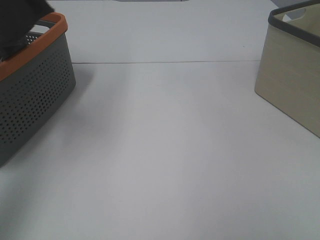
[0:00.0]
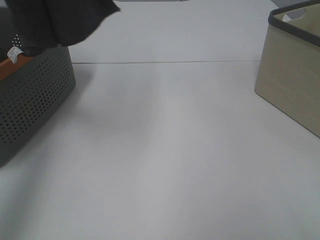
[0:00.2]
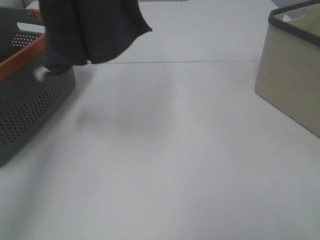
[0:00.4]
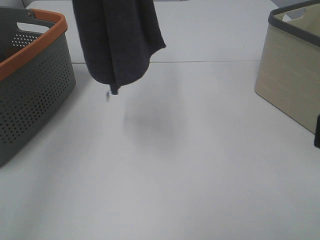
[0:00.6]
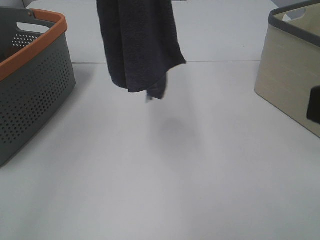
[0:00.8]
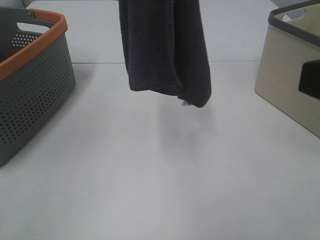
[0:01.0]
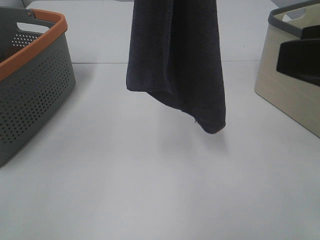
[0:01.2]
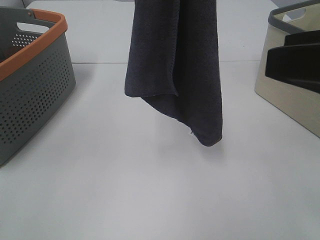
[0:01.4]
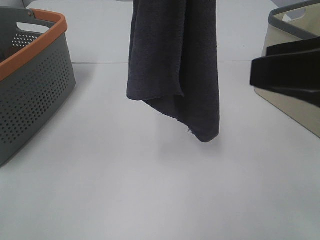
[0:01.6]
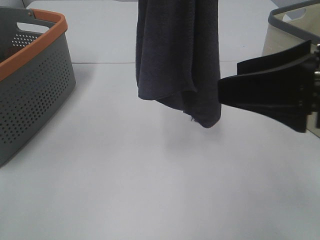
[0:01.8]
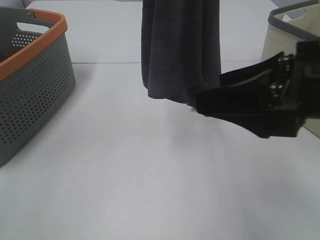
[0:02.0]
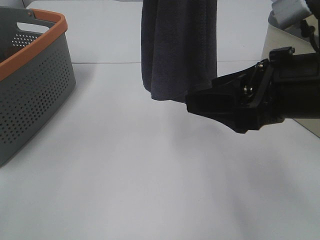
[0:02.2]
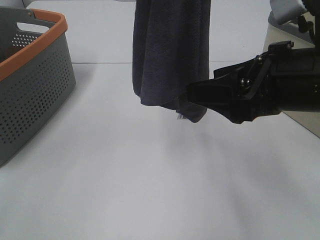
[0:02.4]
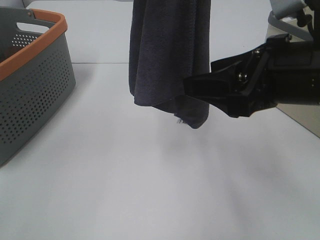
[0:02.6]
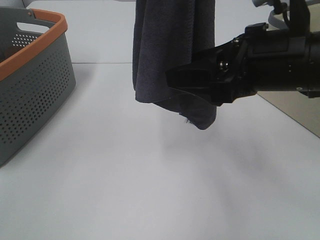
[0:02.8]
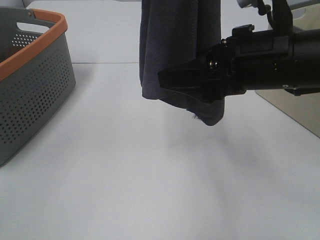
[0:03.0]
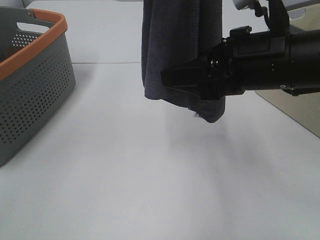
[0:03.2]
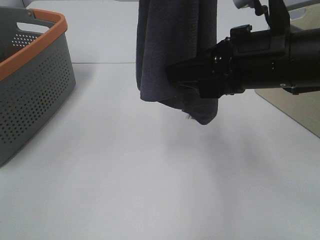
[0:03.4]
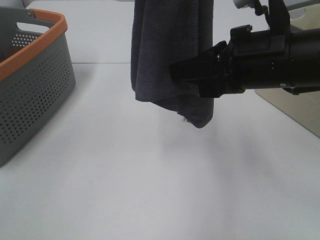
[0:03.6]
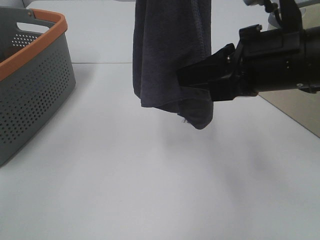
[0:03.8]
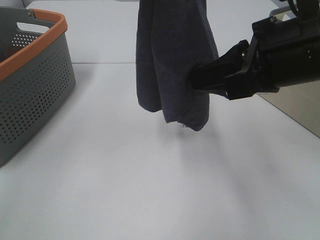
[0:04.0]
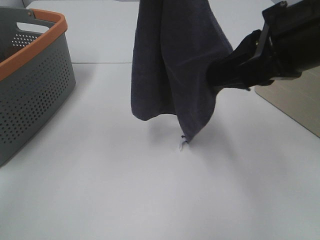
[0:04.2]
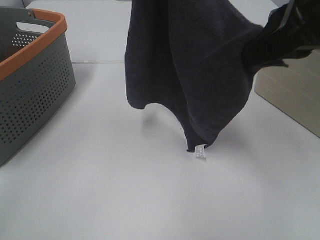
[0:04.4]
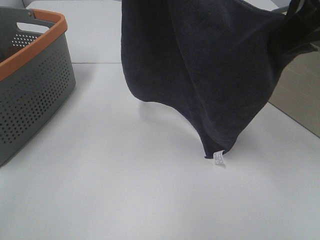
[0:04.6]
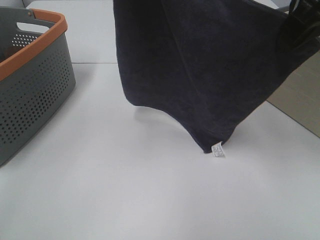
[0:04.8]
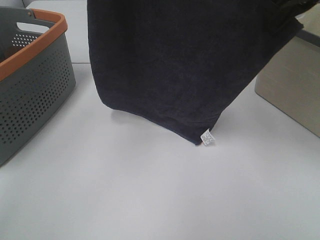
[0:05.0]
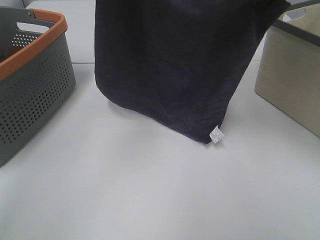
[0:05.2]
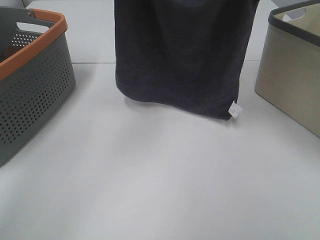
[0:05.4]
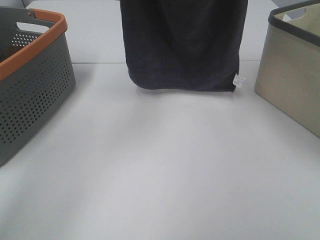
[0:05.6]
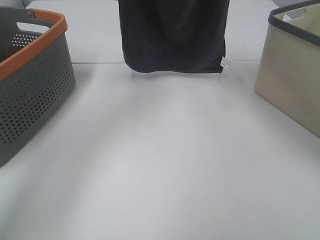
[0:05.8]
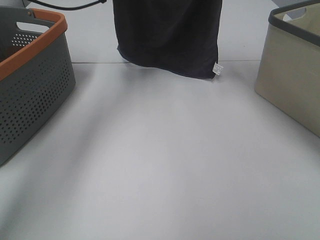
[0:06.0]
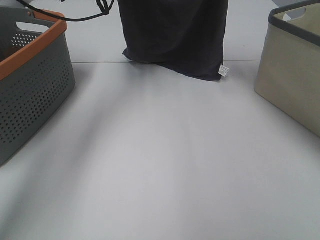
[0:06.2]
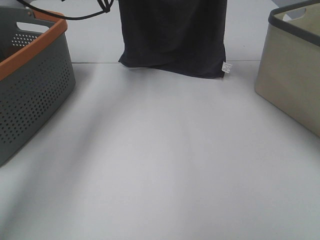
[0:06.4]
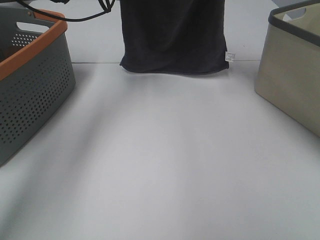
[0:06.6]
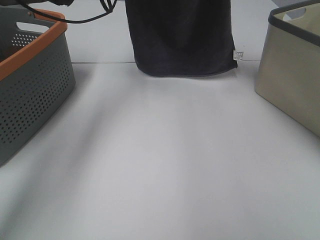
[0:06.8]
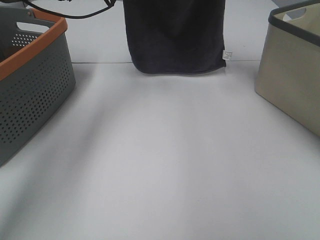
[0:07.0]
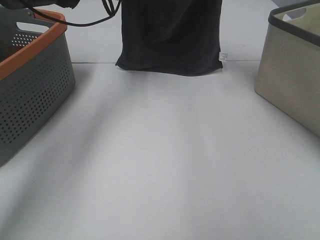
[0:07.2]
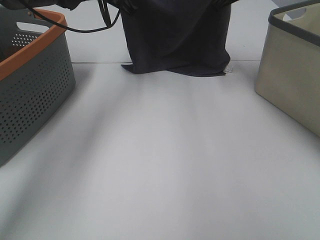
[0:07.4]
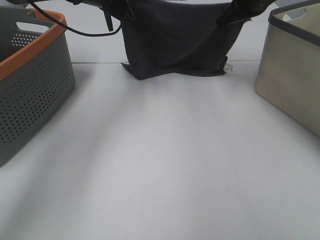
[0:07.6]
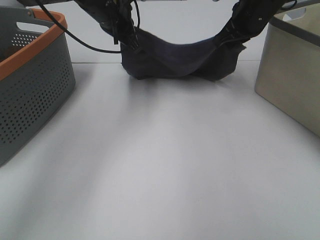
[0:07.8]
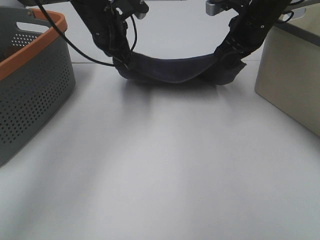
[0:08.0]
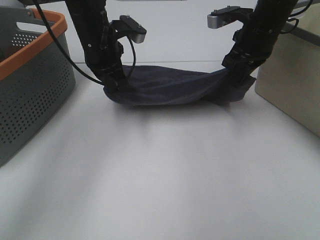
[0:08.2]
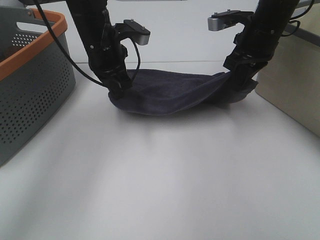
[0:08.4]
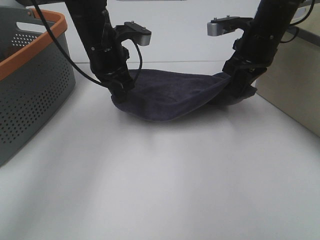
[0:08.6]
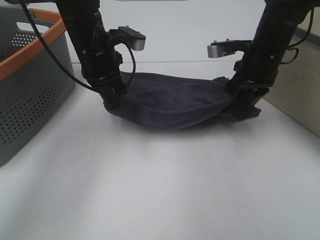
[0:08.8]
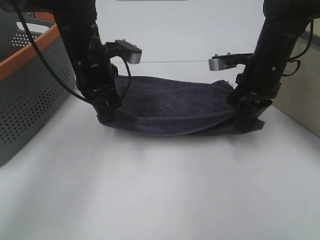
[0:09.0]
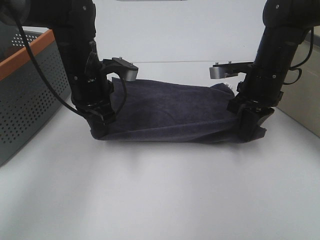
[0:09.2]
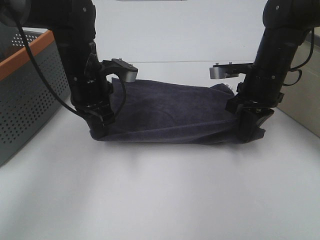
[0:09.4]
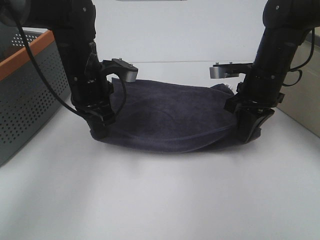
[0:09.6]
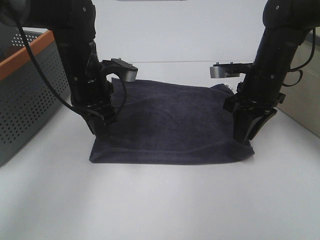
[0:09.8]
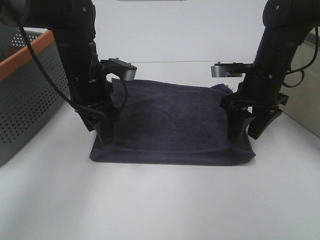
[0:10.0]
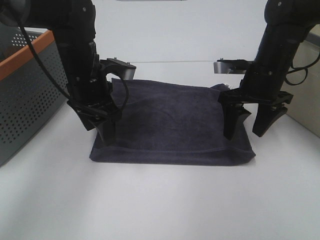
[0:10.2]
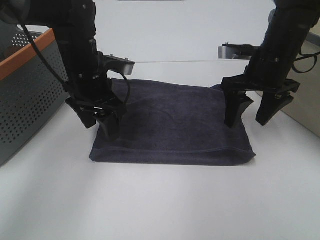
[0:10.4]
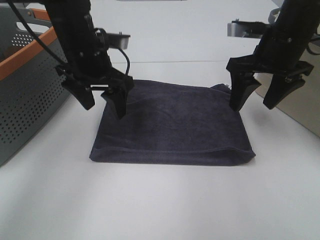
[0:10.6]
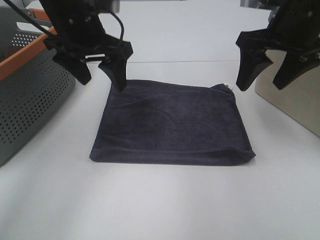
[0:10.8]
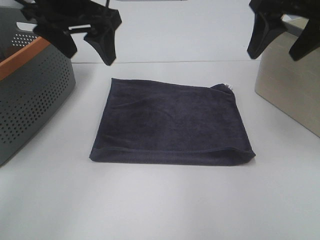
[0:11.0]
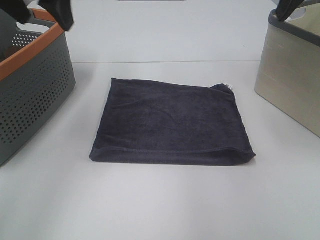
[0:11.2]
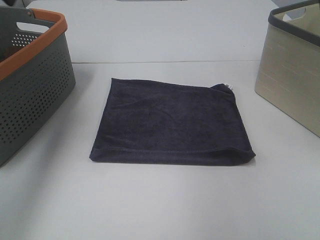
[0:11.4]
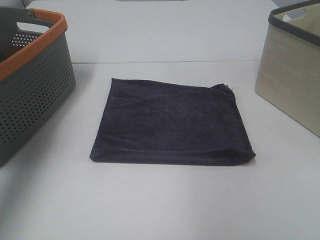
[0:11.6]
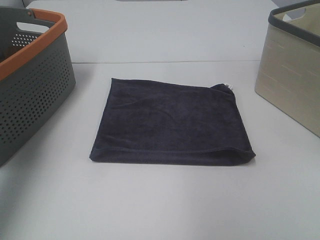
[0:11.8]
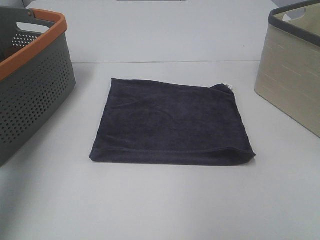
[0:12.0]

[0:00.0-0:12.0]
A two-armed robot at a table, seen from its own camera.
Task of the whole recording: Remove the towel and place it.
Step, 0:00.0 to 0:02.6: Right hand: grab a corner of the grey towel and straighten it.
Step, 0:02.8 to 0:06.0: Left hand: spread the grey towel flat on the table.
Step, 0:02.8 to 0:06.0: Right hand: spread the grey towel flat on the table.
0:00.0 to 0:01.6: The left gripper goes about 20 cm to the right. Meanwhile the right gripper is displaced forward by about 15 cm.
0:01.6 to 0:03.0: The right gripper travels forward, to the left and downward by roughly 10 cm.
0:03.0 to 0:04.4: The left gripper shifts some 5 cm downward. Meanwhile the right gripper goes some 10 cm upward, and closes up.
0:04.4 to 0:06.0: The left gripper is displaced forward and downward by about 25 cm; the right gripper is displaced forward by some 25 cm.
0:06.0 to 0:07.6: Both grippers move downward, approximately 5 cm.
0:07.6 to 0:09.0: Both grippers travel together backward and downward, about 15 cm.
0:09.0 to 0:10.4: The right gripper opens its fingers; the left gripper opens up.
0:10.4 to 0:12.0: The right gripper moves backward, upward and to the right, some 30 cm; the left gripper moves upward, to the left and backward, some 35 cm.

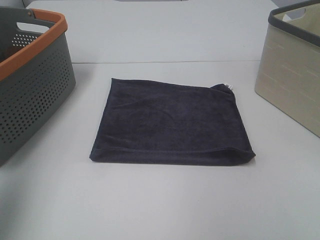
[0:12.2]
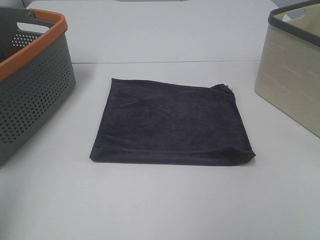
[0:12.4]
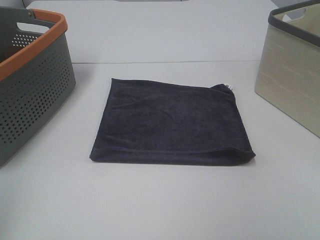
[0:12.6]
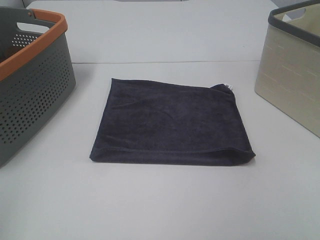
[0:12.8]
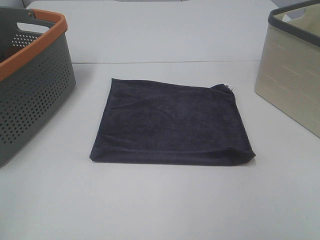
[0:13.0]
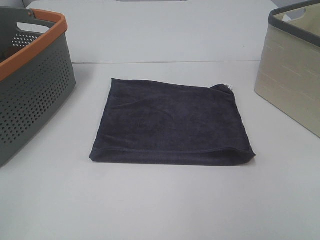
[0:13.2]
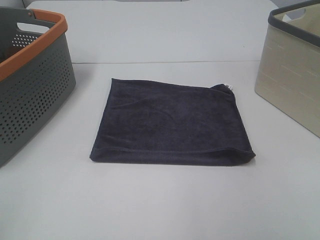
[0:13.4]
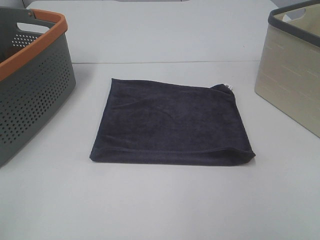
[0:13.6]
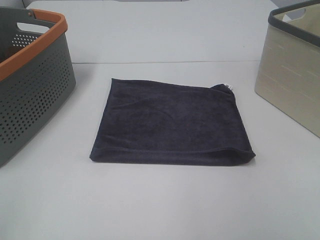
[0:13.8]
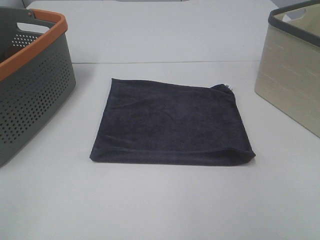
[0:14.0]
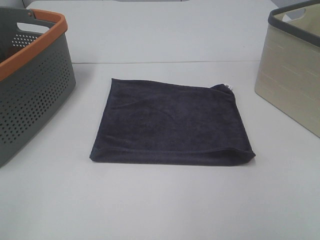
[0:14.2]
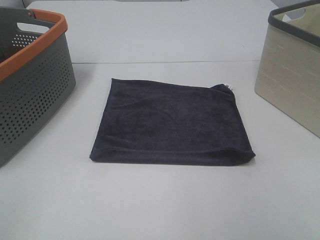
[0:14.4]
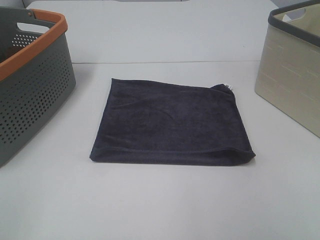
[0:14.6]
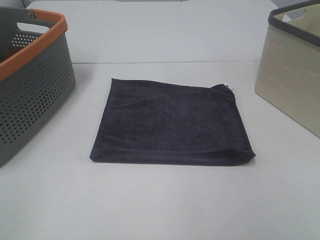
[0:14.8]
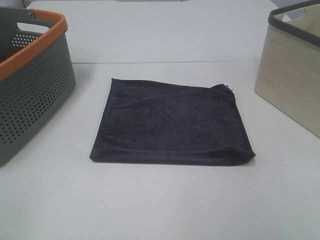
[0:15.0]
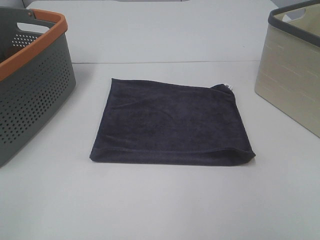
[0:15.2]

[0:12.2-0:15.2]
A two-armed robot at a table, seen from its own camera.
Task of the whole recording: Remove the towel and place it.
0:12.2 to 0:13.8: The left gripper heads backward and downward, covering some 20 cm.
